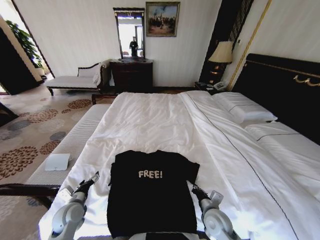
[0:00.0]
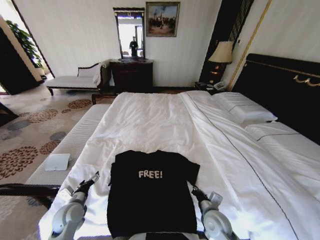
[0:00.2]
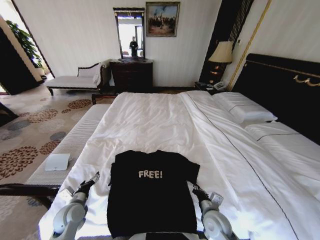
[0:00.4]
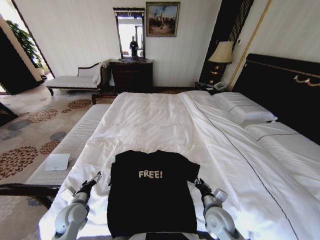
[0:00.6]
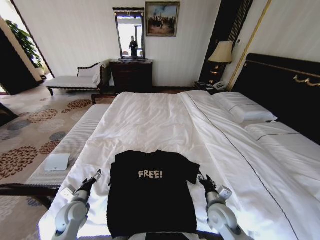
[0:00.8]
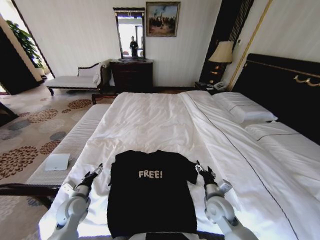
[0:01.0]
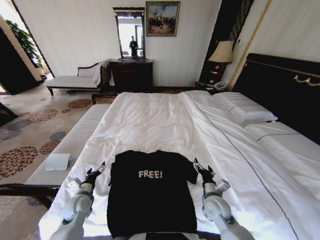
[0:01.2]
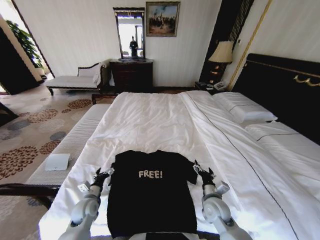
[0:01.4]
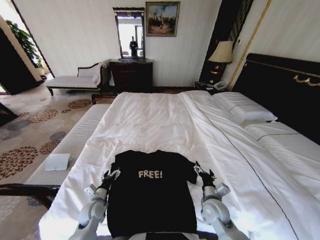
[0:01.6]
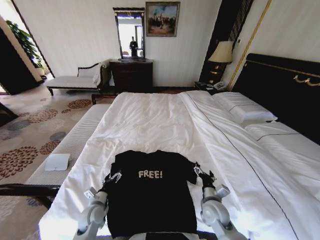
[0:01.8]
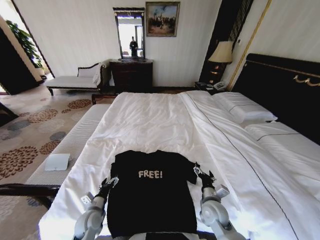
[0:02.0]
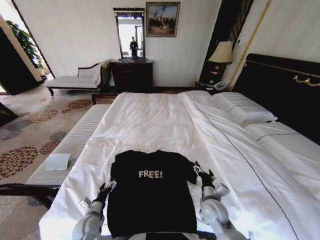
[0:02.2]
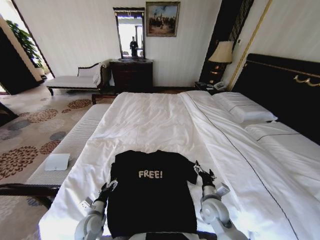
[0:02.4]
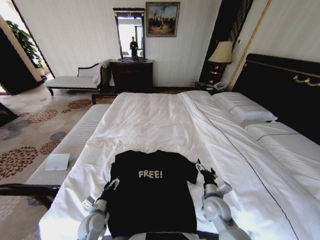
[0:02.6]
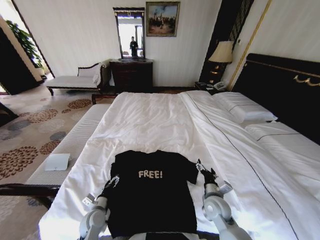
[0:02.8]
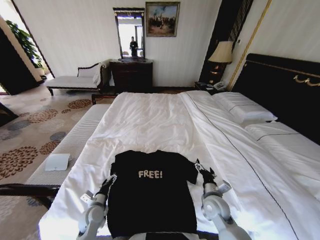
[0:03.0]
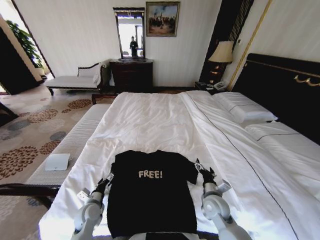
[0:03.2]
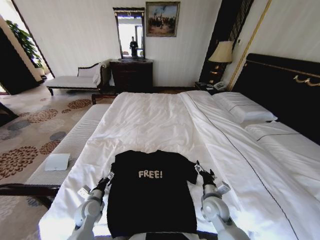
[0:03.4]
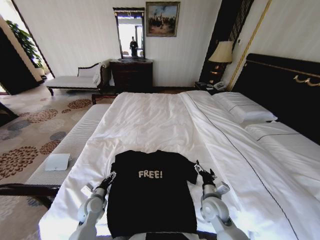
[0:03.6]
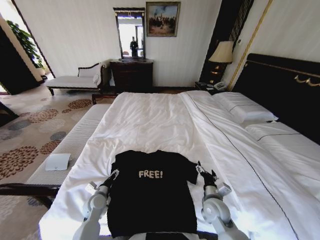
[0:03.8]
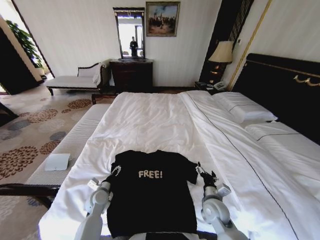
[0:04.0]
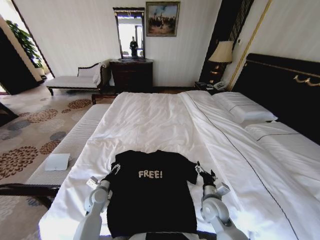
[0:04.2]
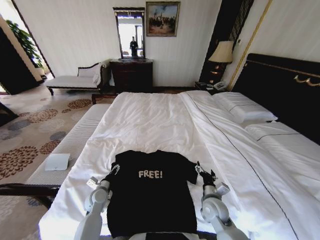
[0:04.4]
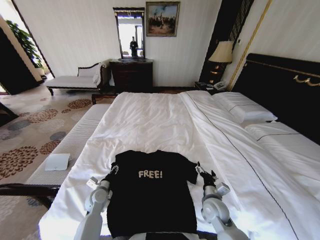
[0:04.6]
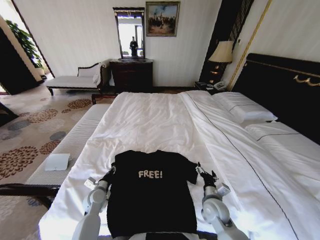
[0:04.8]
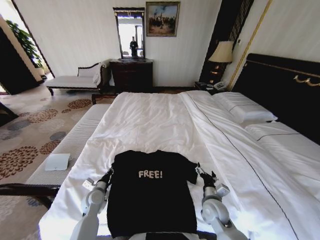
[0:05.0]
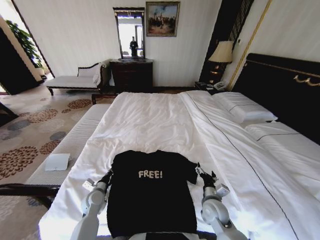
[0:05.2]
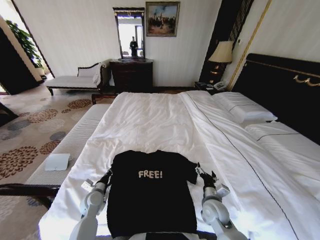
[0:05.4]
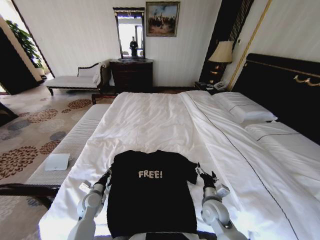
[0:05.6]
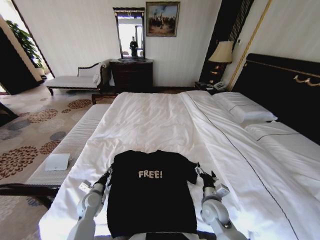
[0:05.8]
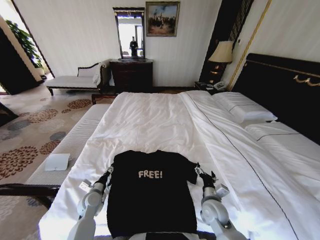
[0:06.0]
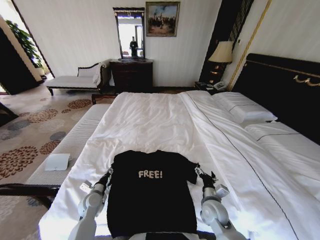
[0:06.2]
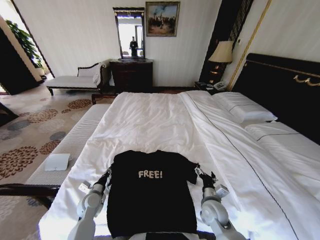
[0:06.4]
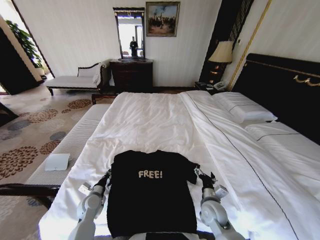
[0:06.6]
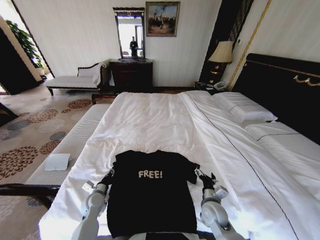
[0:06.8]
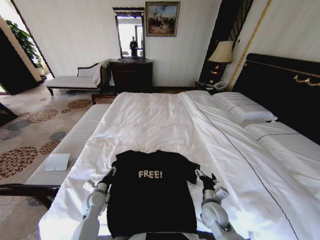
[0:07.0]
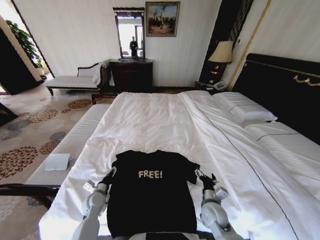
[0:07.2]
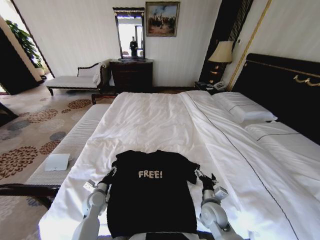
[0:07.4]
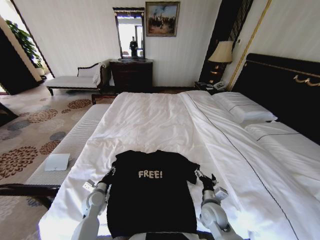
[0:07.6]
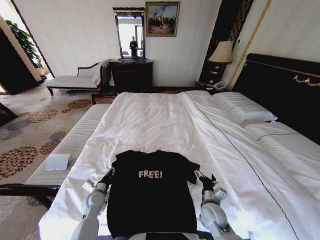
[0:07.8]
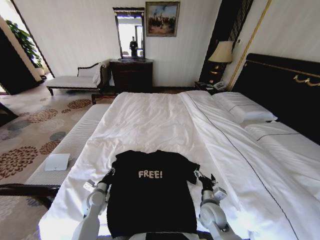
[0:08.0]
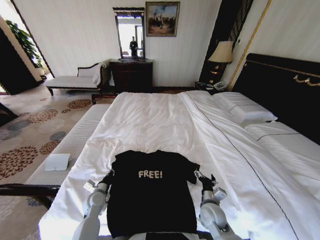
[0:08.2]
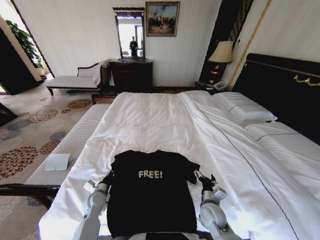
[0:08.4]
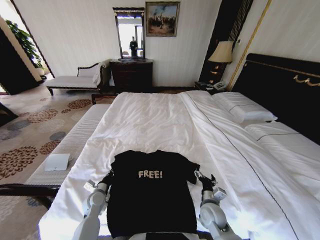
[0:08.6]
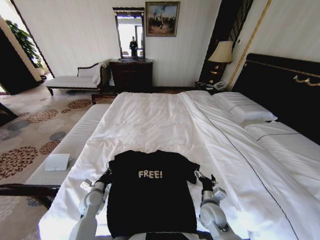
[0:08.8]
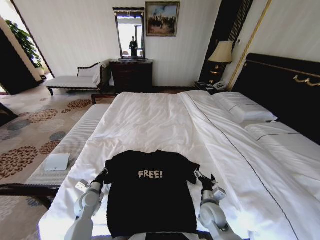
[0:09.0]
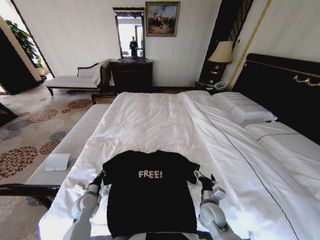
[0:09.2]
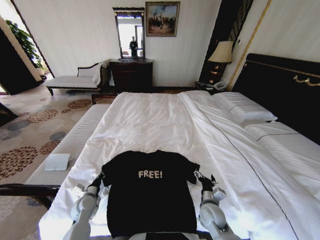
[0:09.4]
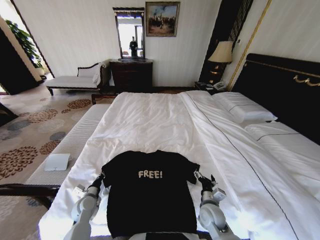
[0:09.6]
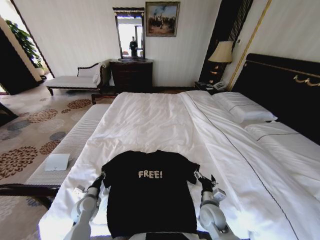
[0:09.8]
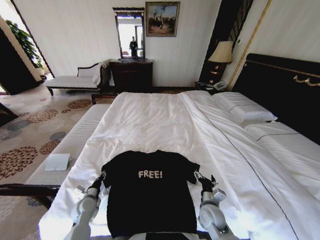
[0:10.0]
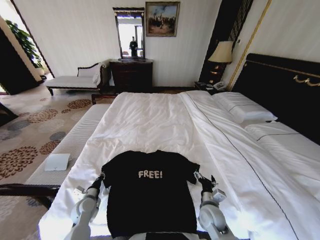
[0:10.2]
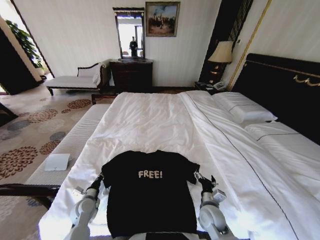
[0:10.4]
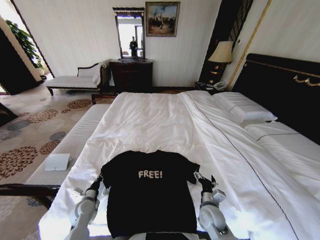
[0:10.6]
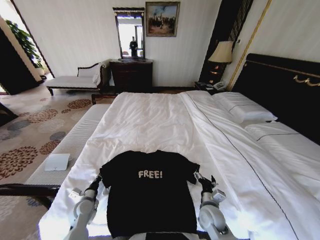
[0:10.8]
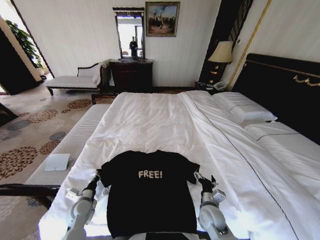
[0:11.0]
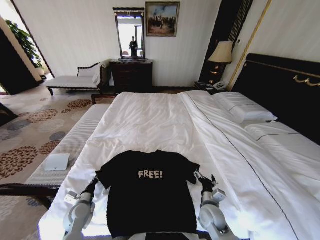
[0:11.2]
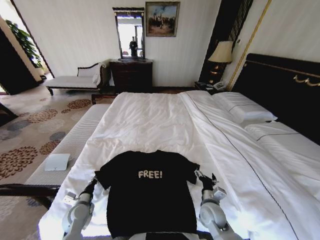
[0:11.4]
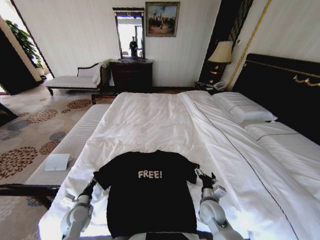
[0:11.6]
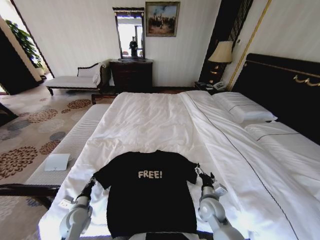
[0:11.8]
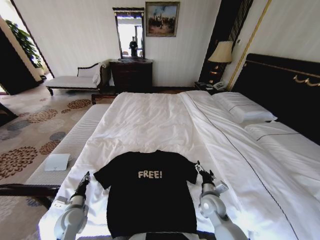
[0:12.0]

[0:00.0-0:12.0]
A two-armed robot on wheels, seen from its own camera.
Task of the whole recording: Fold the clothes on the bed.
0:00.0 to 0:01.6: The left gripper moves to the right and downward, some 10 cm, while the right gripper opens.
0:01.6 to 0:03.0: The grippers stay close to where they were, moving slightly.
0:03.0 to 0:04.4: The left gripper travels forward by roughly 5 cm.
0:04.4 to 0:06.0: The left gripper closes and opens again.
0:06.0 to 0:07.6: The left gripper closes and opens again.
0:07.6 to 0:09.0: The left gripper closes.
0:09.0 to 0:10.4: The left gripper opens, then closes once more.
0:10.4 to 0:12.0: The left gripper shifts by roughly 5 cm.

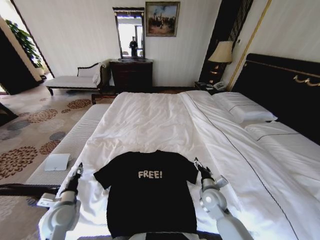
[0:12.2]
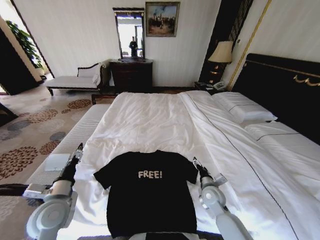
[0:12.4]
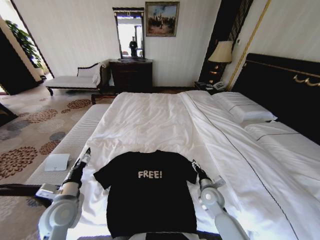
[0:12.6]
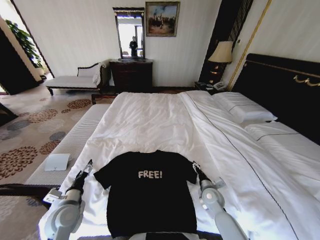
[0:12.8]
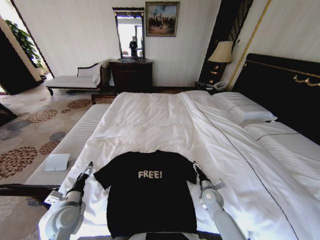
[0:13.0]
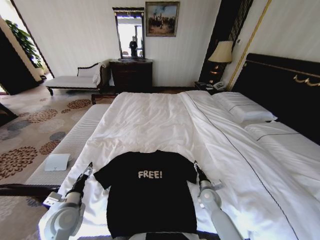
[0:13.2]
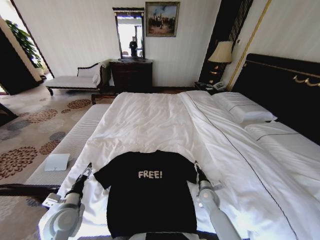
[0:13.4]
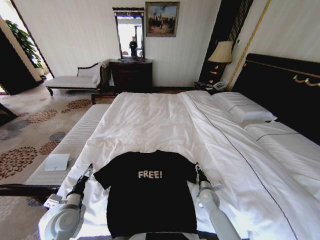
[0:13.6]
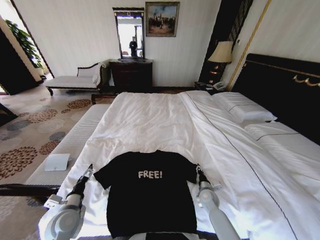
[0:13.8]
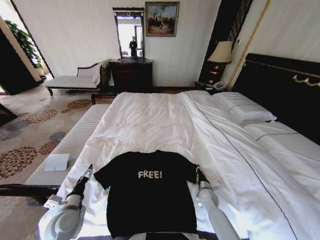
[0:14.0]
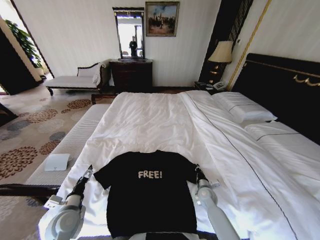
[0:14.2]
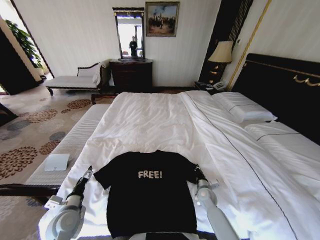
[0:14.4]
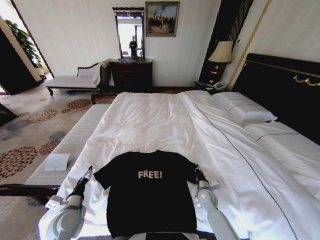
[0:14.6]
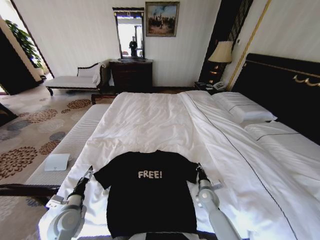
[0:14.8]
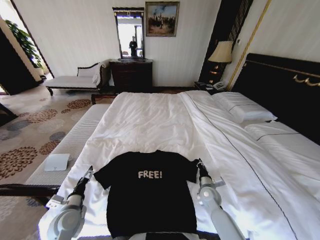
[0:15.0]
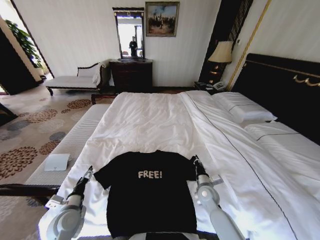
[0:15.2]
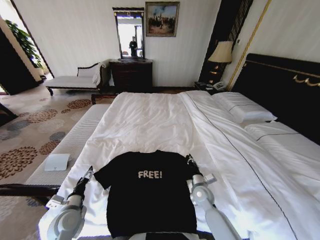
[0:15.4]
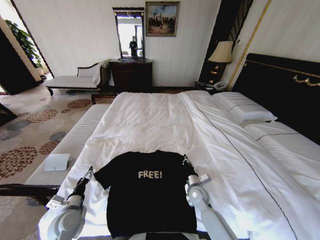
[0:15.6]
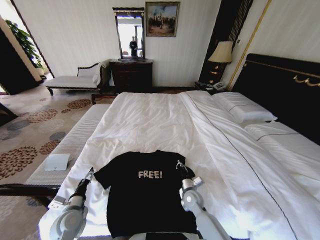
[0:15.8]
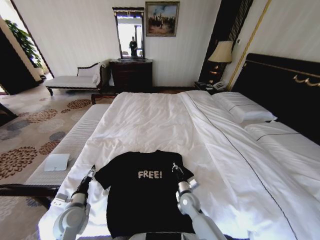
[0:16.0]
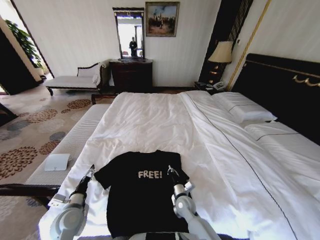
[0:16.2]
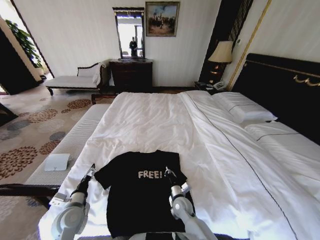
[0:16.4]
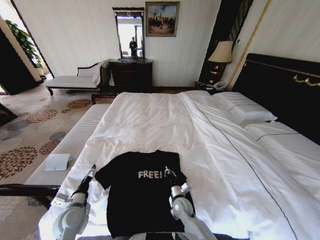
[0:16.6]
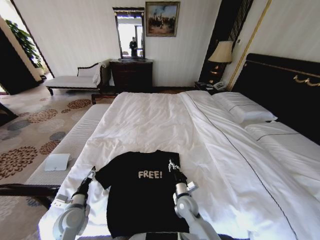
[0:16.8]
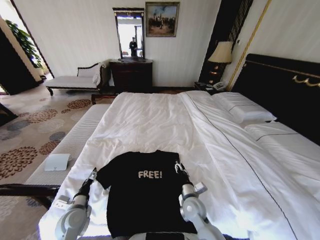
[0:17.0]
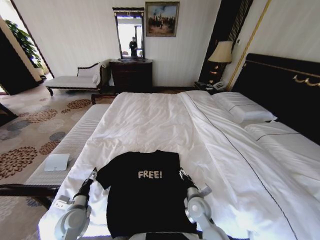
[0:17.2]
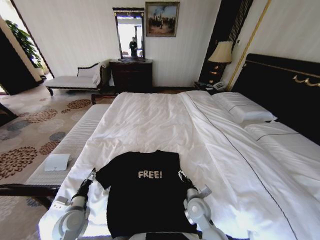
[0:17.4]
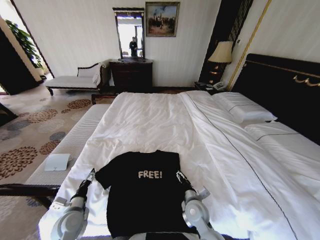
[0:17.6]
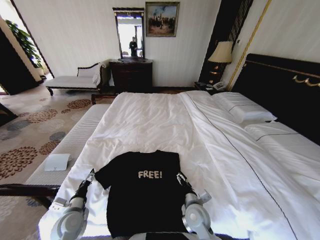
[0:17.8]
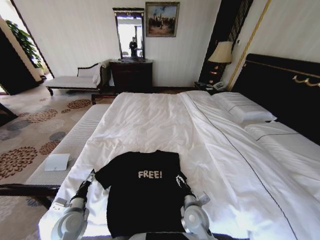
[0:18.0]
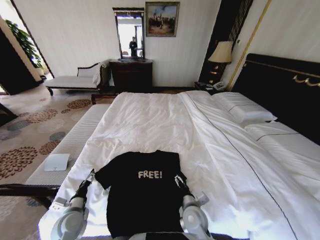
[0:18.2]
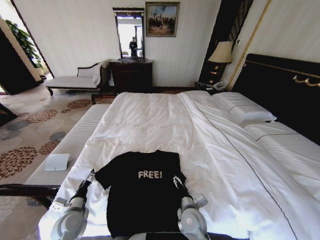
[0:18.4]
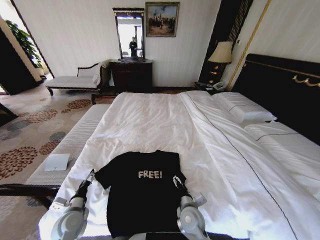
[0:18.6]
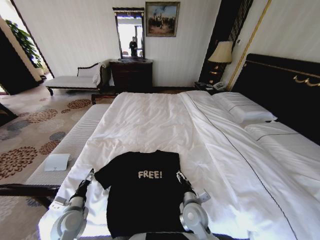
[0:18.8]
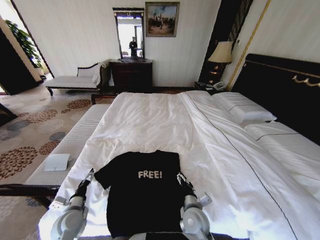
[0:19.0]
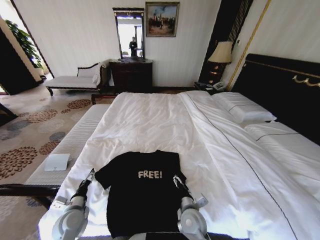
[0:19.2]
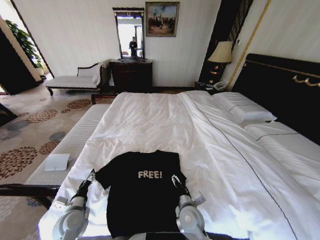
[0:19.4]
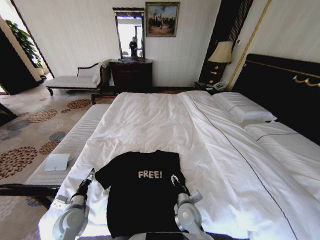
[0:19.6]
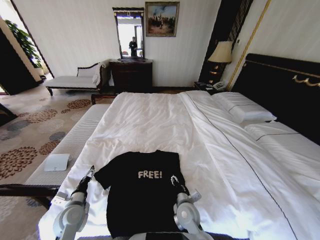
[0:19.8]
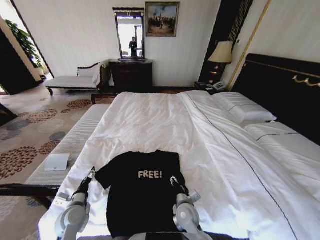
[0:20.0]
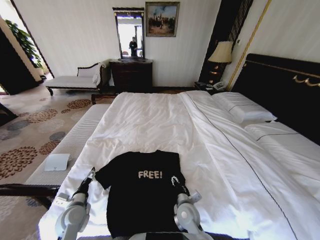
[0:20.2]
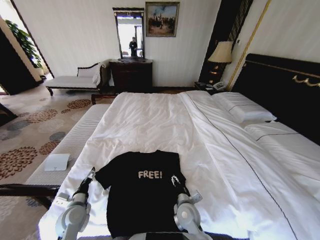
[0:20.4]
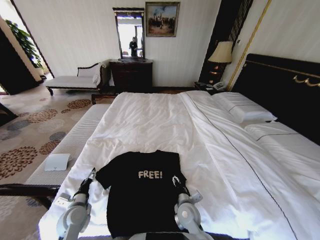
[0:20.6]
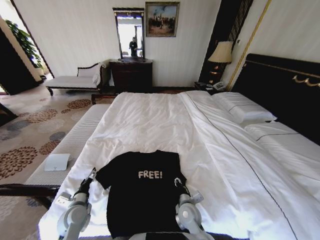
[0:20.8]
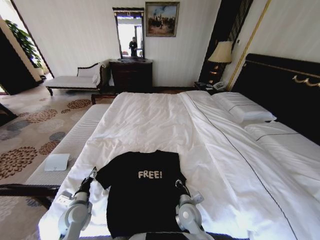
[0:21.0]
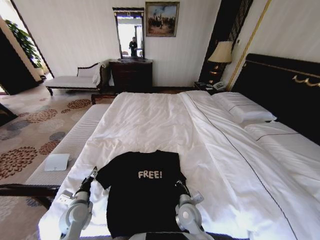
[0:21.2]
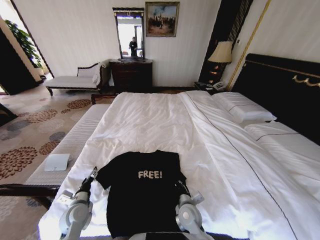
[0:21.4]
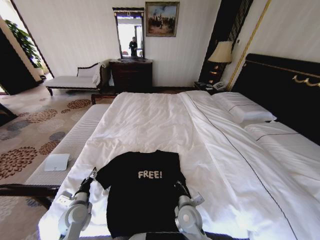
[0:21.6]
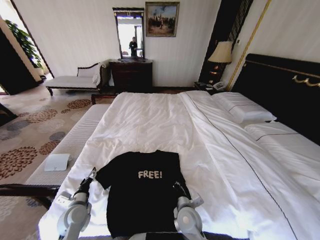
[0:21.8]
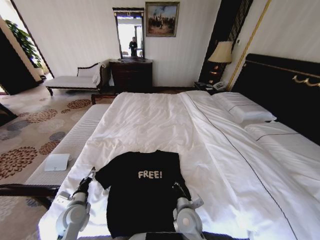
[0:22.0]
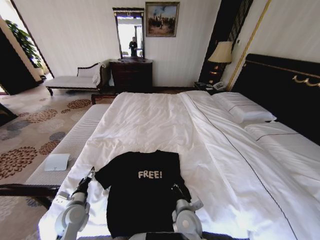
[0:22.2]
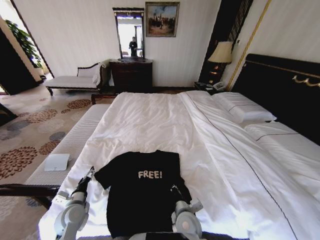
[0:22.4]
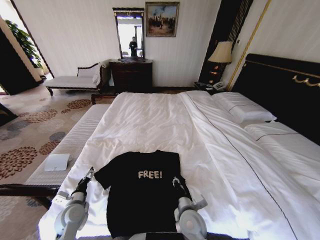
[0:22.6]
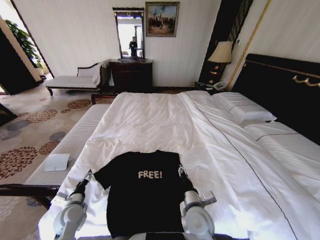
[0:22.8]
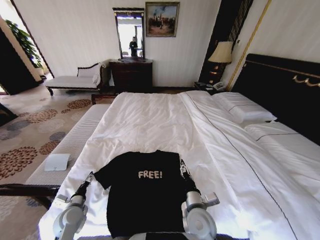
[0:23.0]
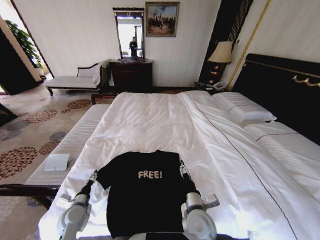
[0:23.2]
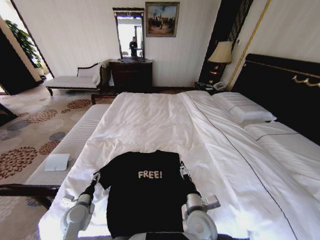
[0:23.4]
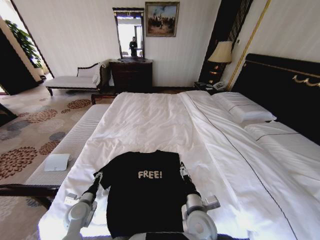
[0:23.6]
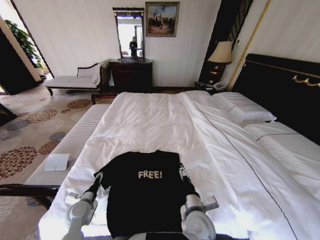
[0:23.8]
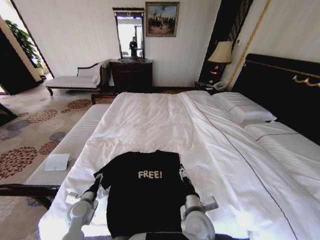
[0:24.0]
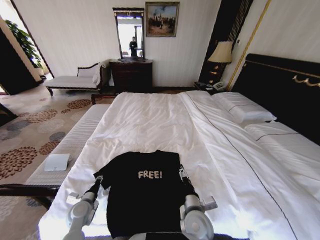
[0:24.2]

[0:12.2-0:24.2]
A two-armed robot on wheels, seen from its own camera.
Task of the whole recording: Fold the clothes on the bed.
0:12.2 to 0:13.8: The left gripper travels upward and back again, about 10 cm each way, and opens its fingers, while the right gripper heads downward, covering about 10 cm, and closes up.
0:13.8 to 0:15.2: The right gripper moves upward, approximately 5 cm, and closes up.
0:15.2 to 0:16.6: The right gripper shifts roughly 15 cm to the left and downward.
0:16.6 to 0:18.2: The right gripper goes about 10 cm upward and backward, and opens.
0:18.2 to 0:19.8: The right gripper closes its fingers.
0:19.8 to 0:21.2: The right gripper closes its fingers.
0:21.2 to 0:22.6: The right gripper shifts some 5 cm upward.
0:22.6 to 0:24.2: The right gripper opens, while the left gripper closes its fingers.
